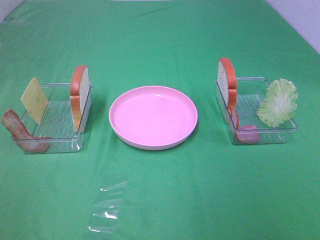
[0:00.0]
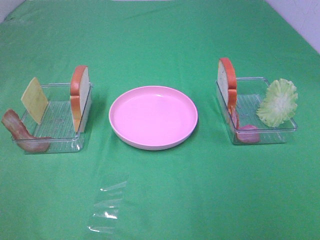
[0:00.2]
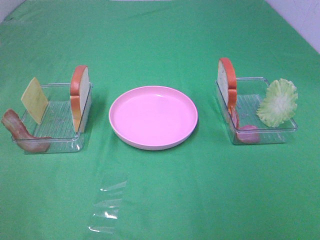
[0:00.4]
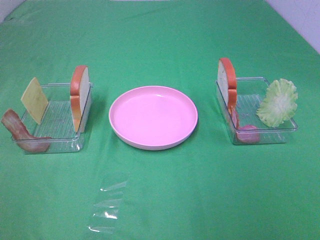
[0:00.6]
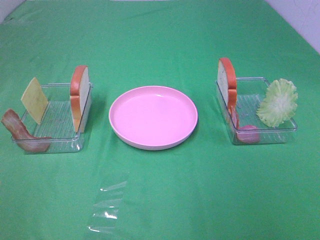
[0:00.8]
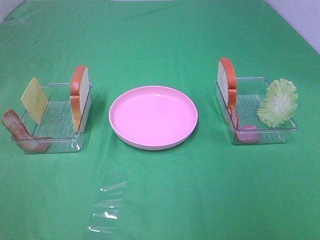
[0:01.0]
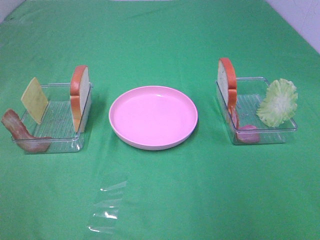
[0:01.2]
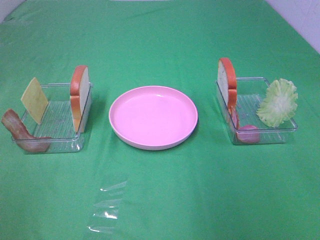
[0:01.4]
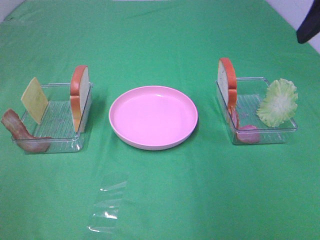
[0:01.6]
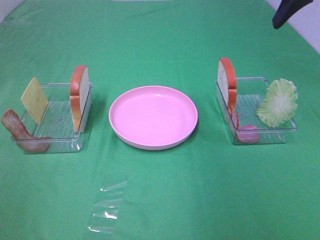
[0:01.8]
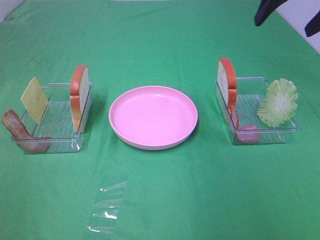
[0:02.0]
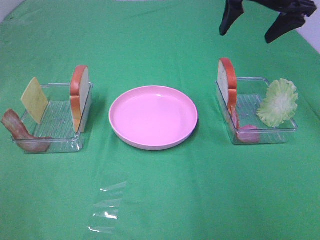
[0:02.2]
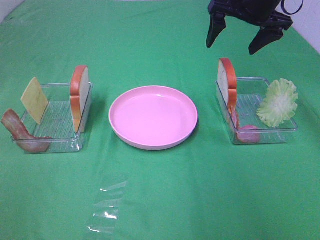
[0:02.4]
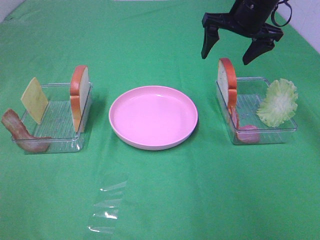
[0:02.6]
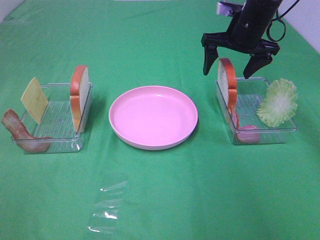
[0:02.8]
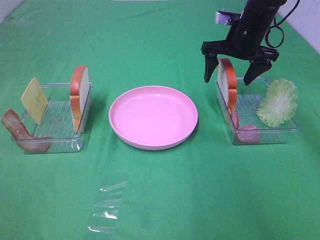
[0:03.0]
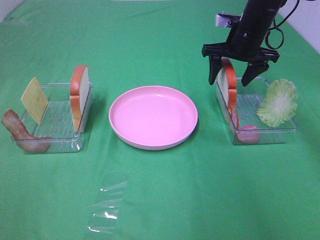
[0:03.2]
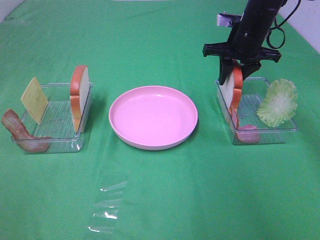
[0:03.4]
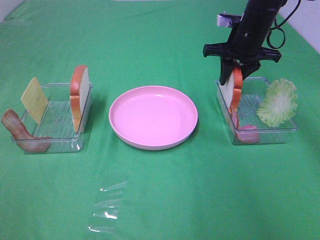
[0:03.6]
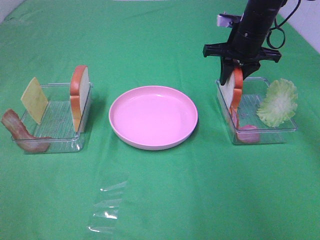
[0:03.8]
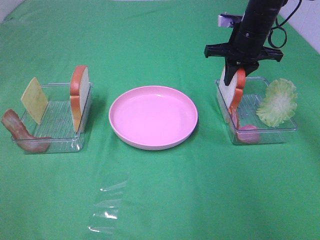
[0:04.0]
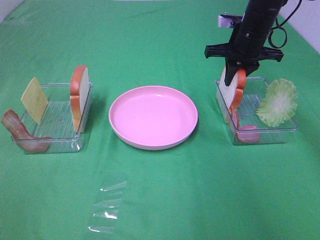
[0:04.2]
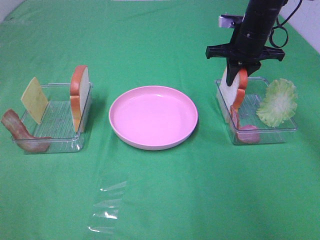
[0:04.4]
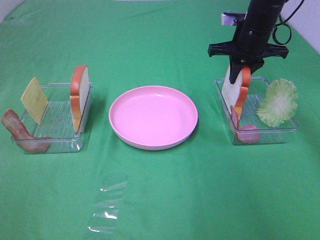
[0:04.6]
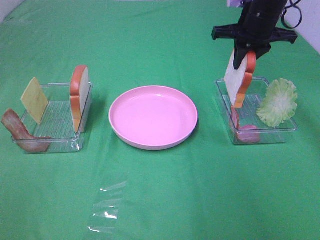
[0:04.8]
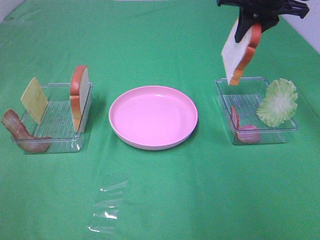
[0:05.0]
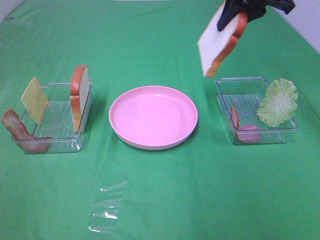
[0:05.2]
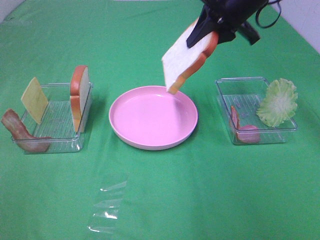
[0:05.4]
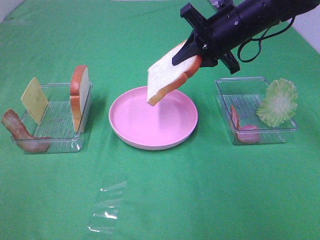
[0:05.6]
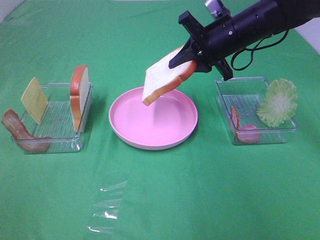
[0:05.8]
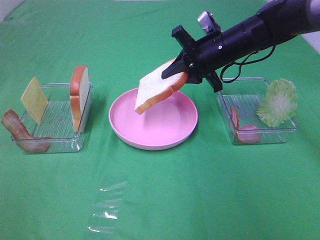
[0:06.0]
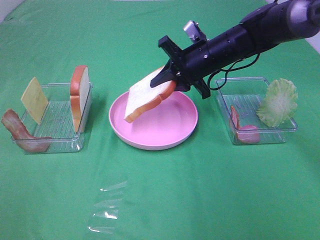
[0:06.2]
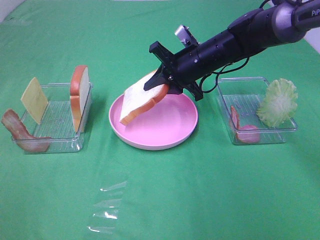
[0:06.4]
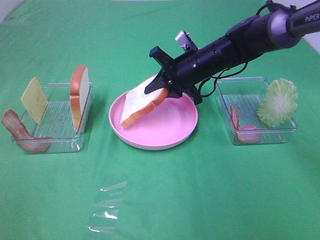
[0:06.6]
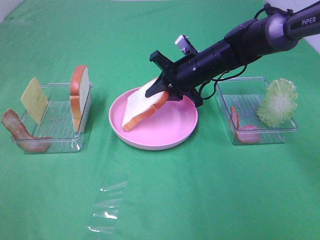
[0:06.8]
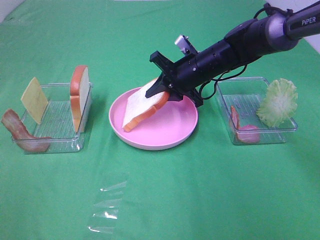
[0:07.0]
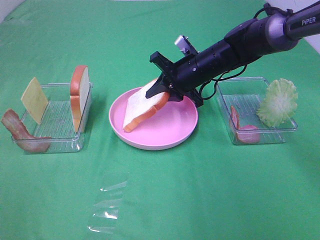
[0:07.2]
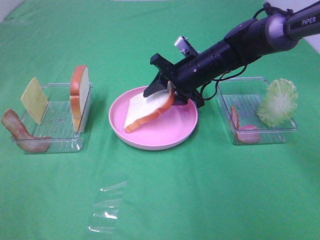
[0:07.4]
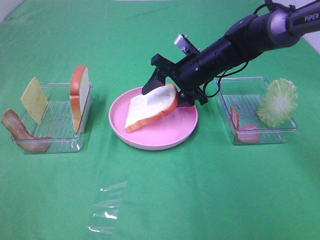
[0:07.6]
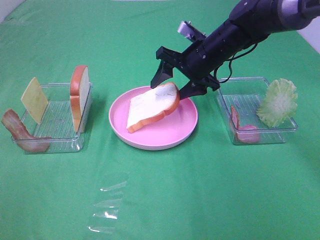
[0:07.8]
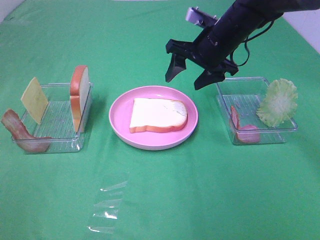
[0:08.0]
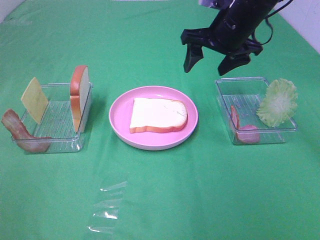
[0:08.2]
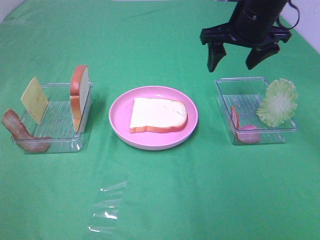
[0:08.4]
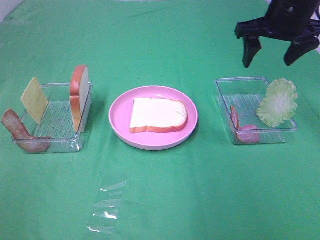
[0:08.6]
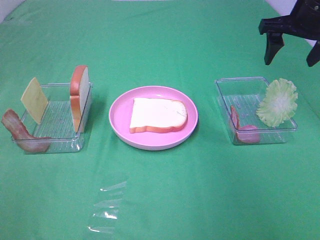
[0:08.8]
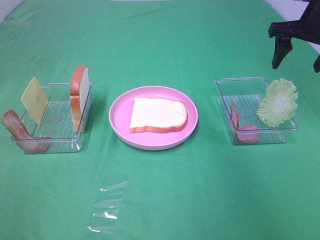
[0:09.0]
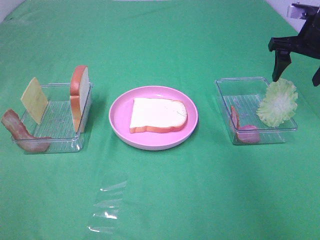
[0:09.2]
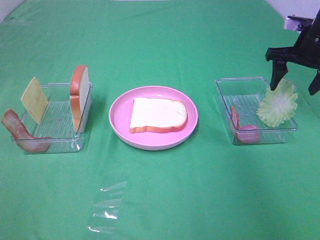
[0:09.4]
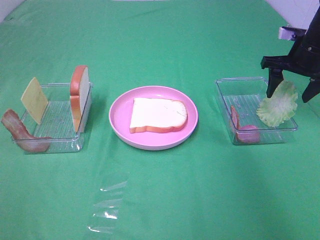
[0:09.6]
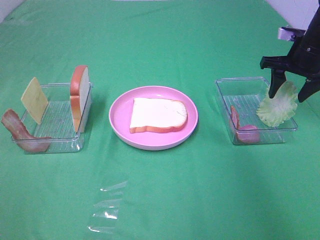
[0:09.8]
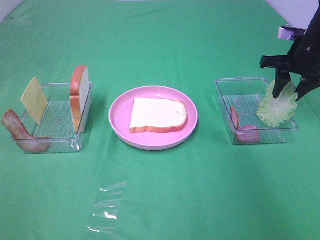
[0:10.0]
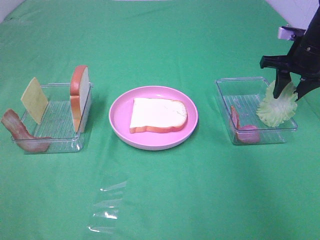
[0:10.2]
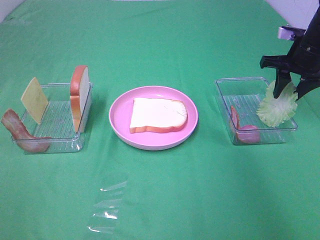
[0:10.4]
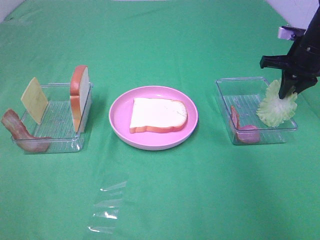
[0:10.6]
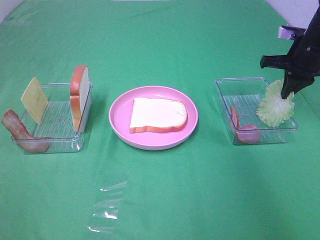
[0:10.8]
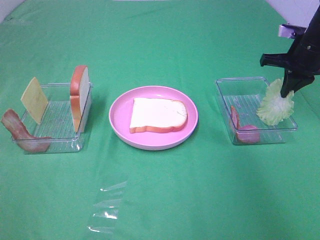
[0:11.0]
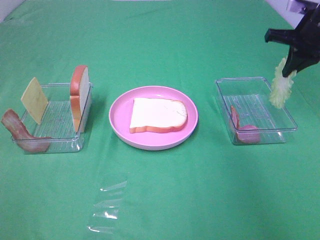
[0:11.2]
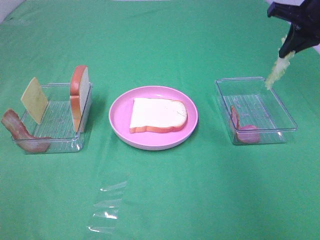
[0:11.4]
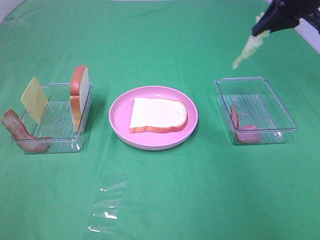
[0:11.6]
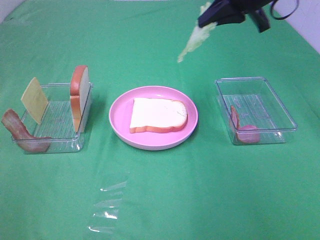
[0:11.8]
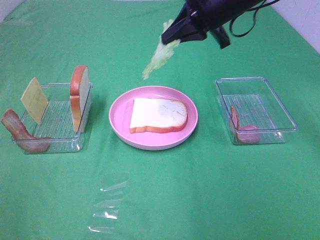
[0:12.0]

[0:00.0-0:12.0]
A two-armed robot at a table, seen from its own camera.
Task of the whole recording: Make sandwiches.
Step, 0:00.0 to 0:04.0: Right hand:grab the bread slice.
Step, 0:04.2 to 0:07.8: Right hand:place the bread slice on the plate.
Step, 0:08.0 to 0:10.8: Right hand:grab the lettuce slice.
0:00.0 to 0:01.6: The right gripper shifts about 25 cm forward.
0:01.6 to 0:03.0: The right gripper moves forward and downward, about 25 cm.
0:03.0 to 0:04.4: The right gripper closes.
0:04.4 to 0:06.0: The right gripper moves to the left, roughly 5 cm, and travels upward and back again, about 10 cm each way.
0:06.0 to 0:07.6: The right gripper moves approximately 5 cm, and opens.
0:07.6 to 0:09.0: The right gripper moves to the right and upward, approximately 25 cm.
0:09.0 to 0:10.4: The right gripper travels downward by approximately 5 cm, and closes.
0:10.4 to 0:12.0: The right gripper is displaced to the left and upward by some 20 cm, and closes its fingers.

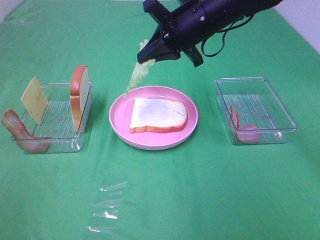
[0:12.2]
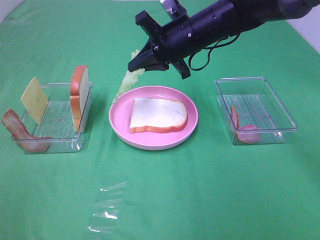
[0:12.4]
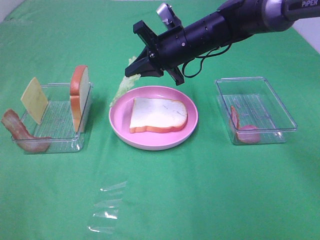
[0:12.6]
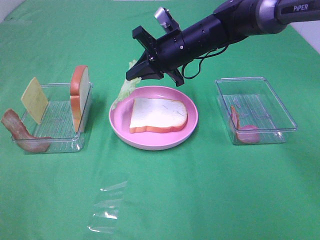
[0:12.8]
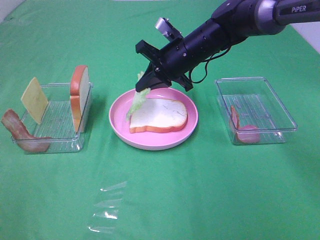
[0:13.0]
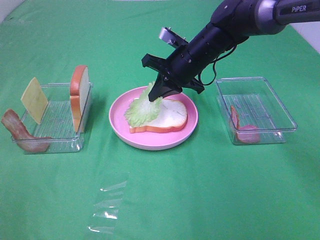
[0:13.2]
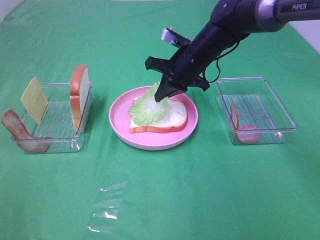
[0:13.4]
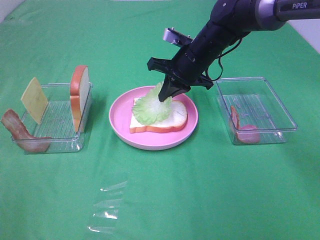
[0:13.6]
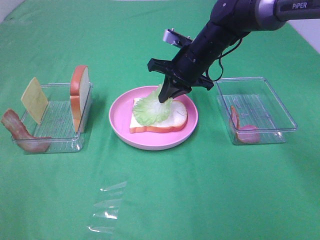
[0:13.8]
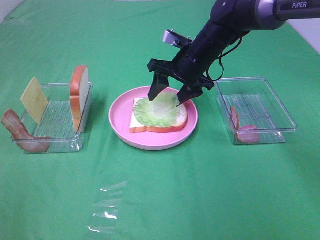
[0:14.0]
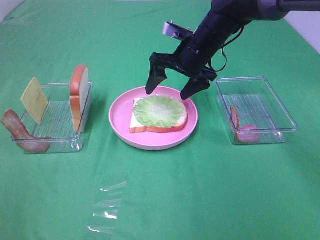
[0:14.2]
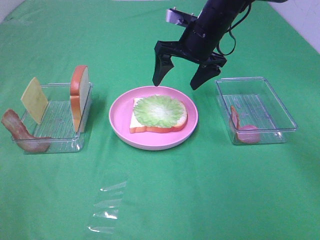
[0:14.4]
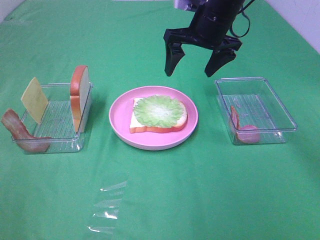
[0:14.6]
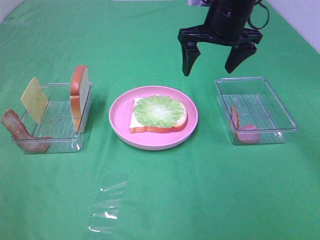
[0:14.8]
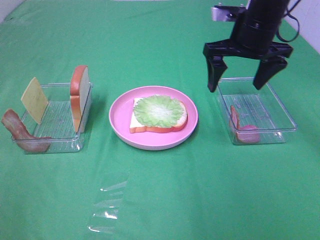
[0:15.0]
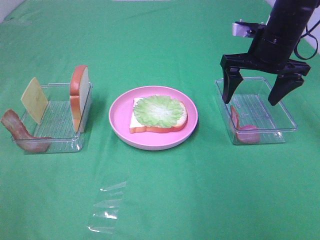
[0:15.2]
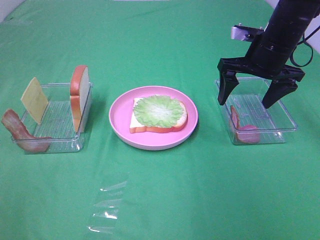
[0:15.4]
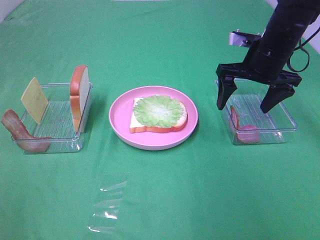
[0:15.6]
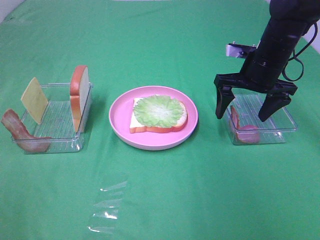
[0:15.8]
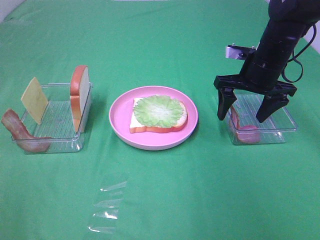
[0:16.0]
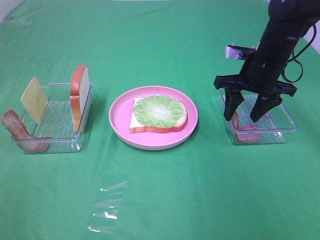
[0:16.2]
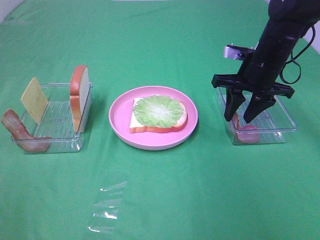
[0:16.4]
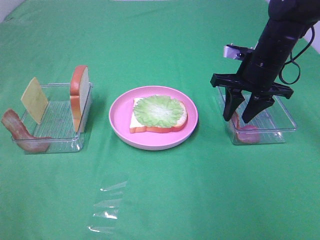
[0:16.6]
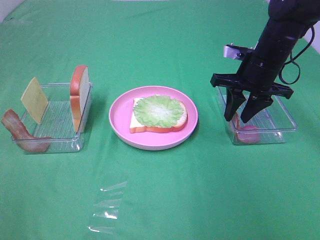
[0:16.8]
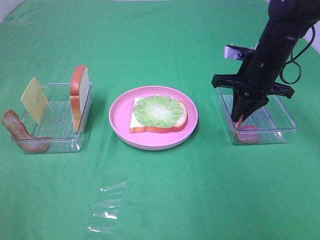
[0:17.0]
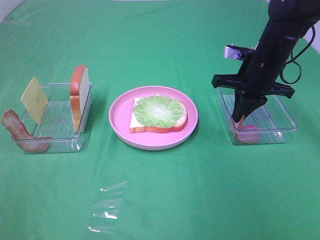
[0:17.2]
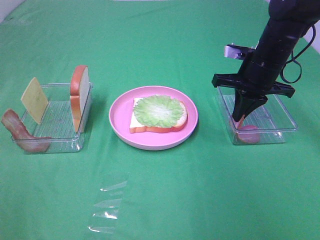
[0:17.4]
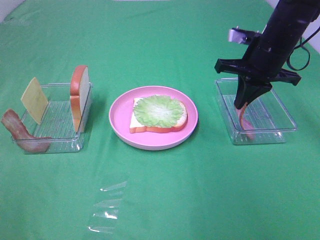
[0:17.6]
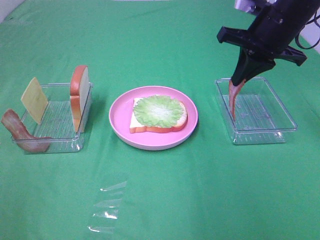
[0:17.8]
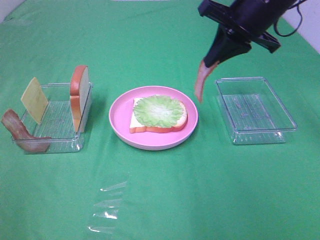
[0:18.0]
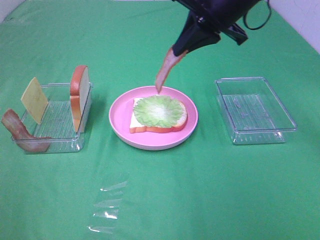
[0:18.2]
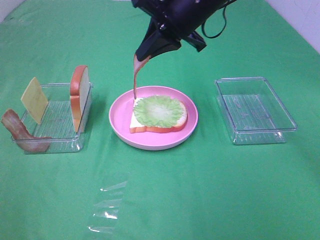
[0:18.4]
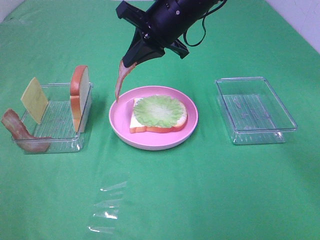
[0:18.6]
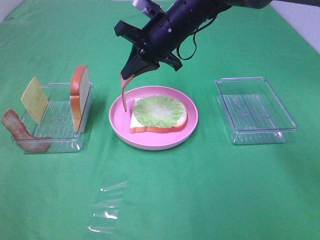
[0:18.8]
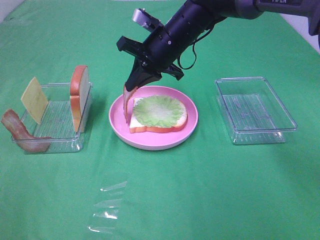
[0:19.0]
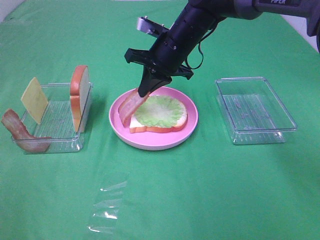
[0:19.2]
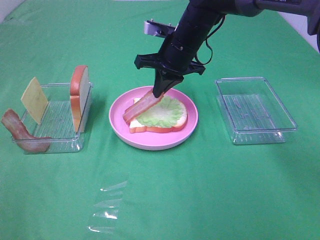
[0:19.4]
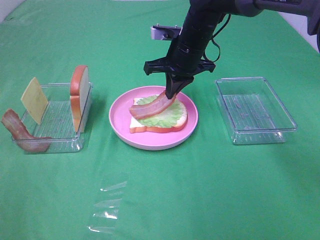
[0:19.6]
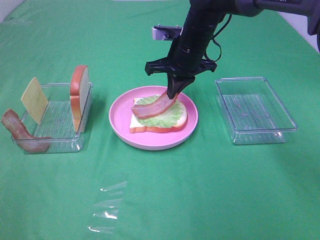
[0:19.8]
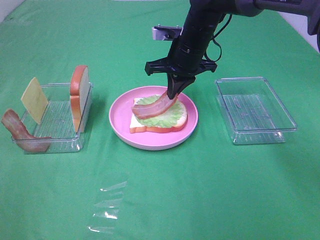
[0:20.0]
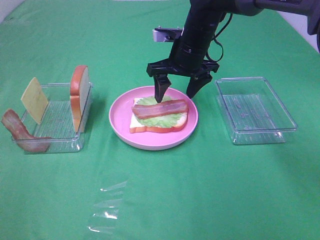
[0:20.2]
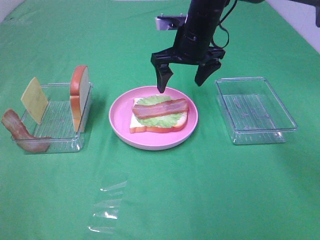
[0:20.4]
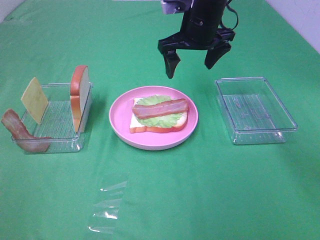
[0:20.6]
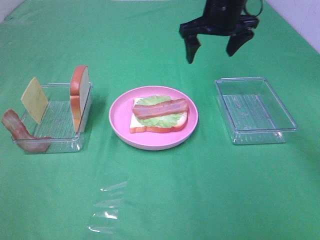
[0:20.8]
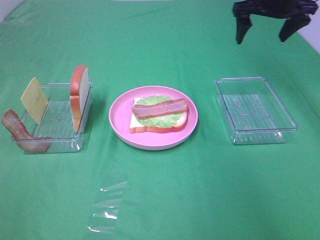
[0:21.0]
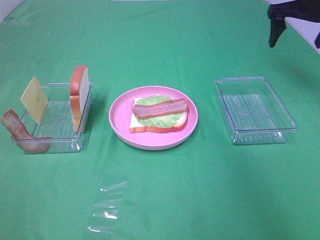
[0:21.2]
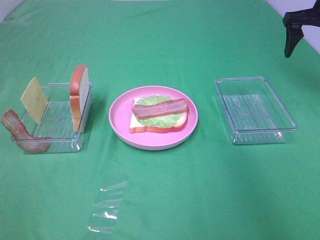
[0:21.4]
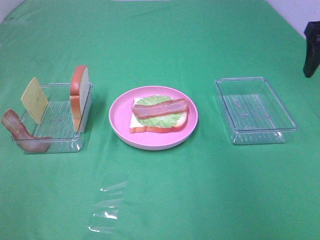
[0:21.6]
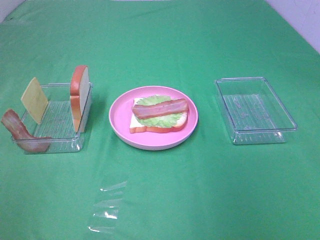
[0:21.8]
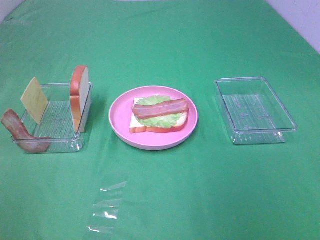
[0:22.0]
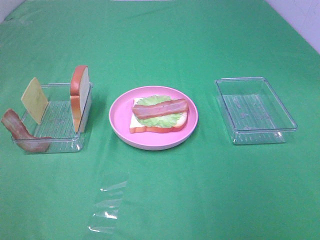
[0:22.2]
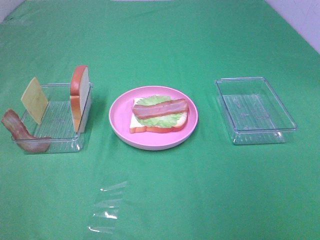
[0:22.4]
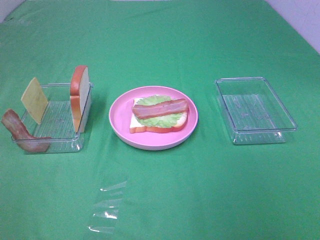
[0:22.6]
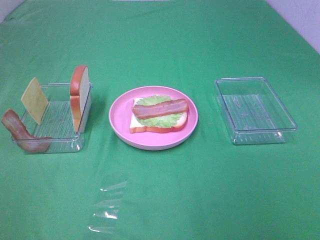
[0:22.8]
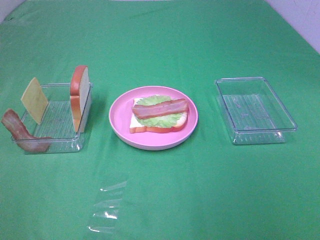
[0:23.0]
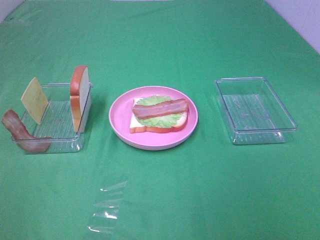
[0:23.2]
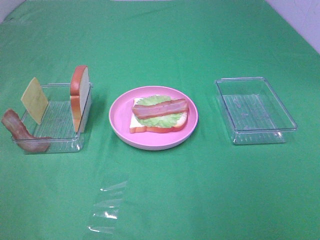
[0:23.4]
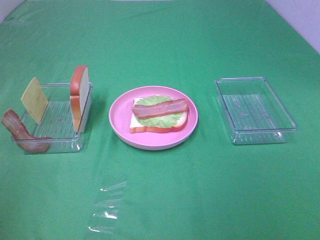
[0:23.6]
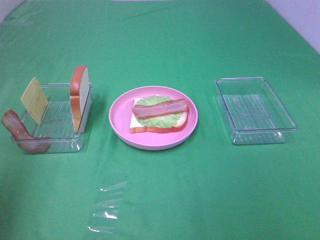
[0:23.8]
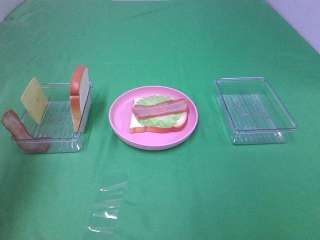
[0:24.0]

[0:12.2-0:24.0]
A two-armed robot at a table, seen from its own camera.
Task of the whole recording: Make sandwiches.
Step, 0:12.2 to 0:14.2: Right hand:place the lettuce slice on the bread slice.
Step, 0:14.4 to 0:17.2: Right hand:grab the bacon.
Step, 0:17.4 to 0:20.2: Right hand:place bacon on lettuce slice.
0:12.2 to 0:13.6: The right gripper goes approximately 10 cm downward.
0:13.6 to 0:15.2: The right gripper goes roughly 15 cm to the right and upward, and opens its fingers.
0:15.2 to 0:16.6: The right gripper closes.
0:16.6 to 0:18.2: The right gripper goes some 15 cm upward and to the left, and closes.
0:18.2 to 0:19.6: The right gripper shifts some 15 cm downward and forward.
0:19.6 to 0:21.0: The right gripper travels to the right and upward by some 20 cm, and opens up.
0:21.0 to 0:22.6: The right gripper goes approximately 50 cm backward.
0:22.6 to 0:24.0: The left gripper moves forward, some 25 cm.
